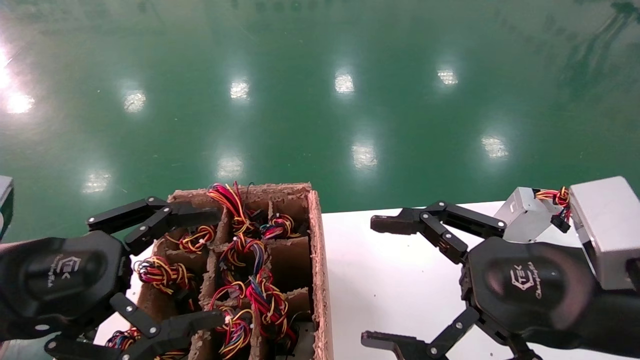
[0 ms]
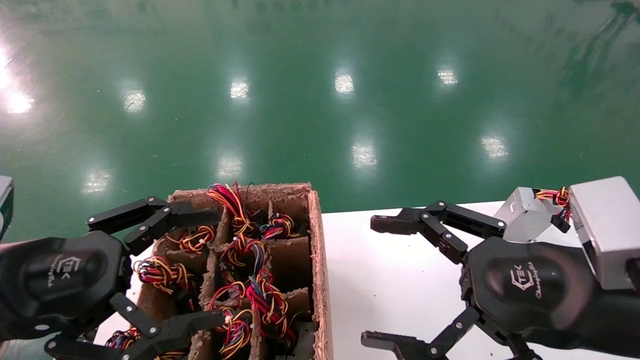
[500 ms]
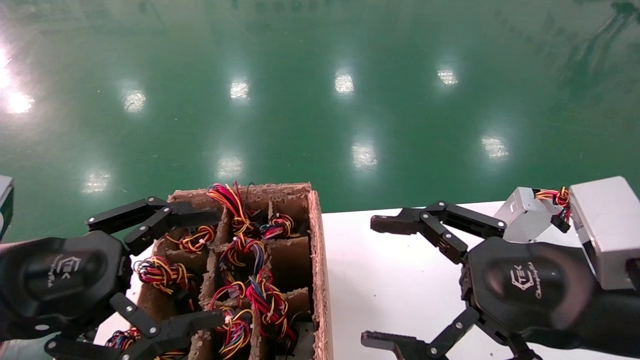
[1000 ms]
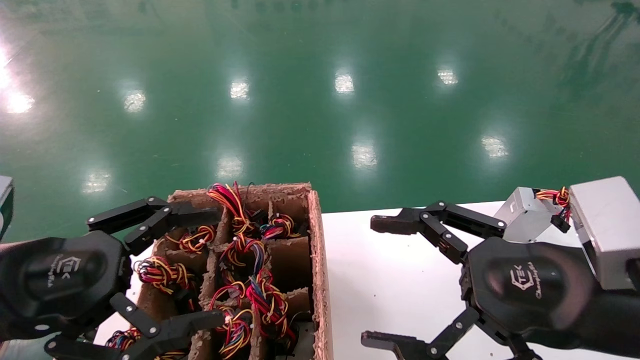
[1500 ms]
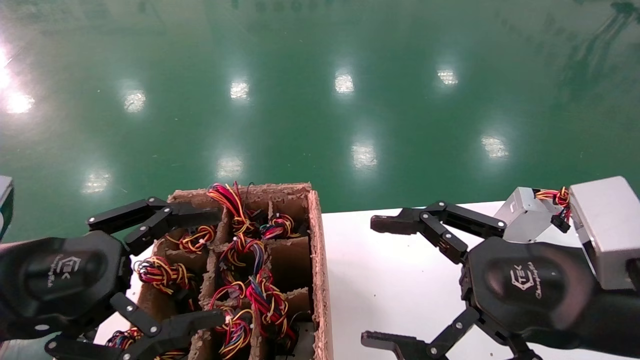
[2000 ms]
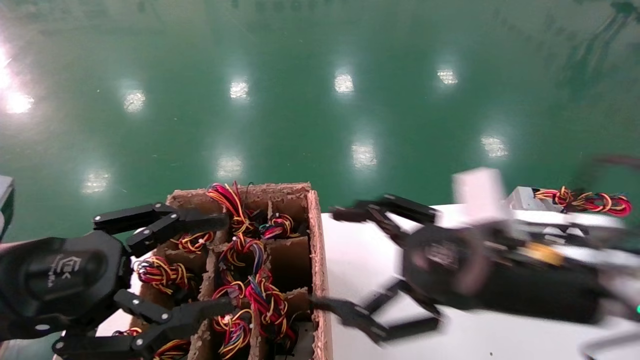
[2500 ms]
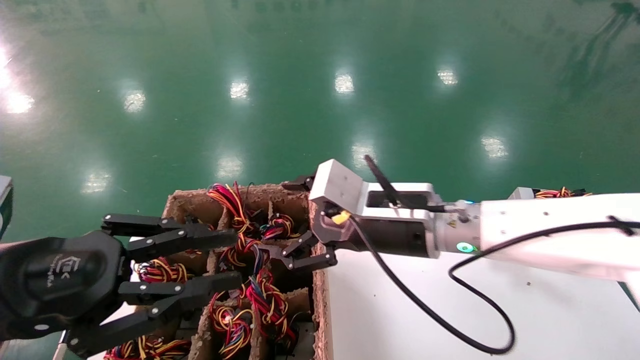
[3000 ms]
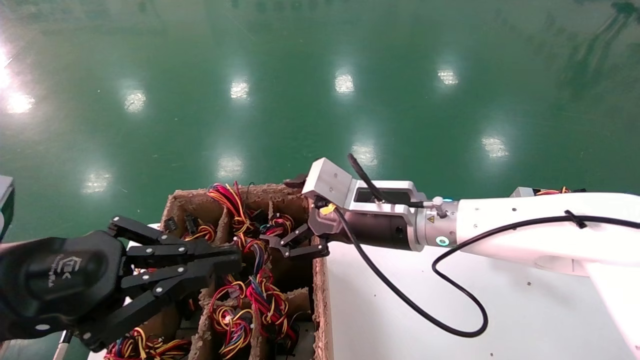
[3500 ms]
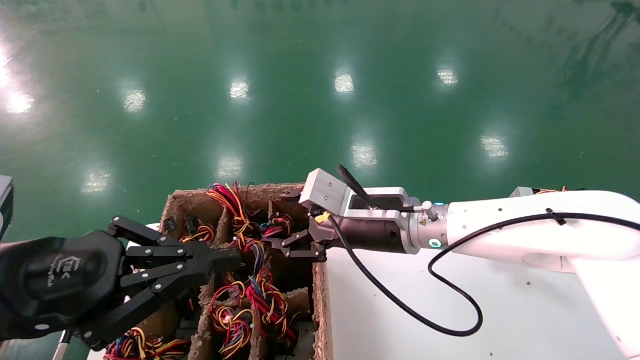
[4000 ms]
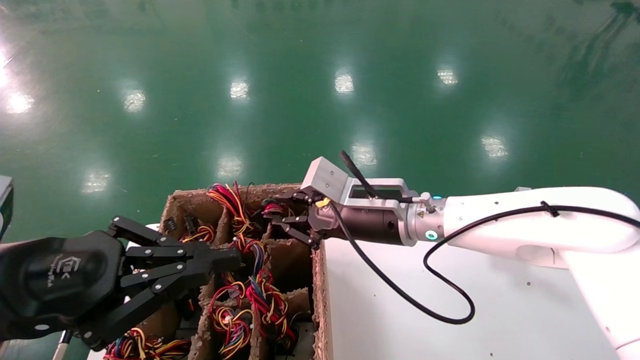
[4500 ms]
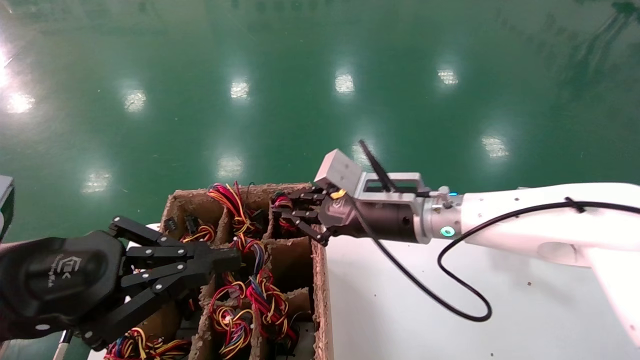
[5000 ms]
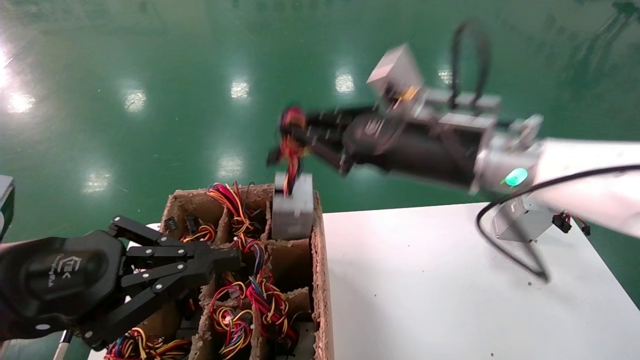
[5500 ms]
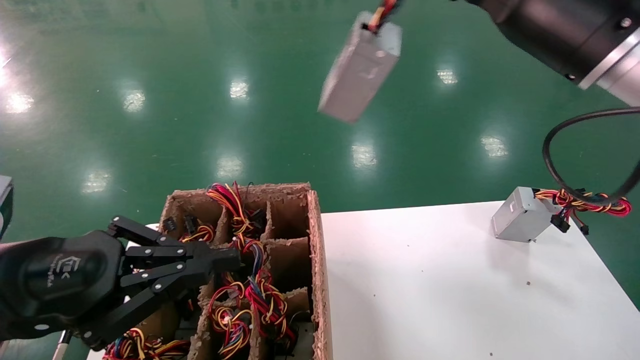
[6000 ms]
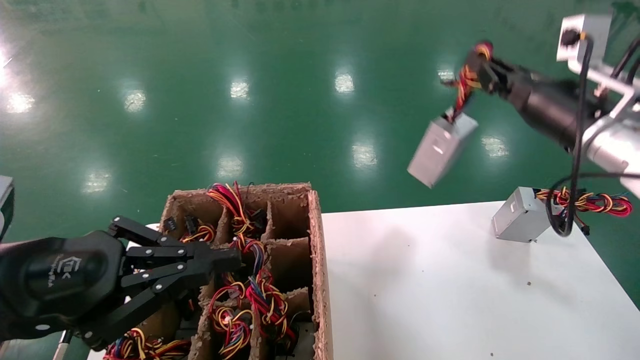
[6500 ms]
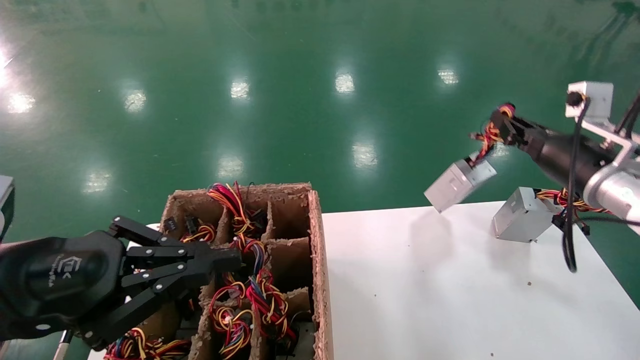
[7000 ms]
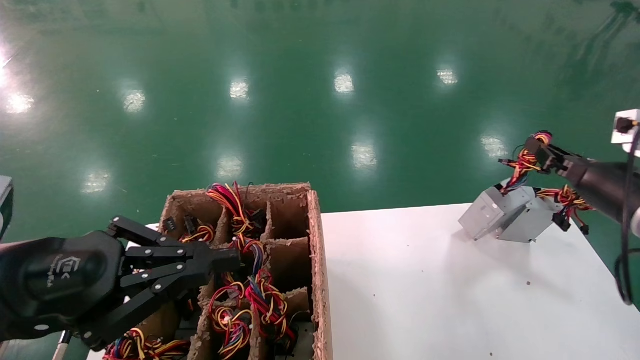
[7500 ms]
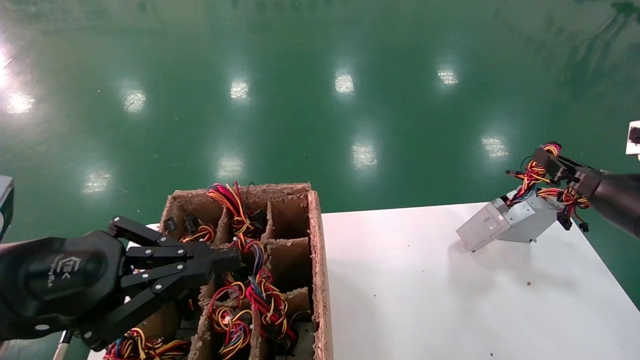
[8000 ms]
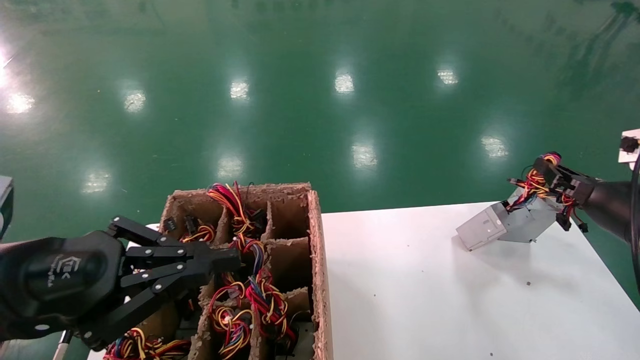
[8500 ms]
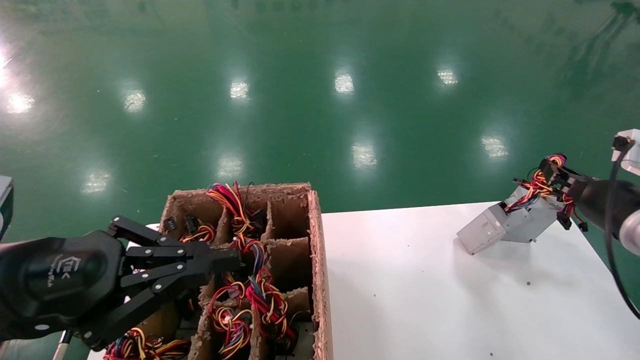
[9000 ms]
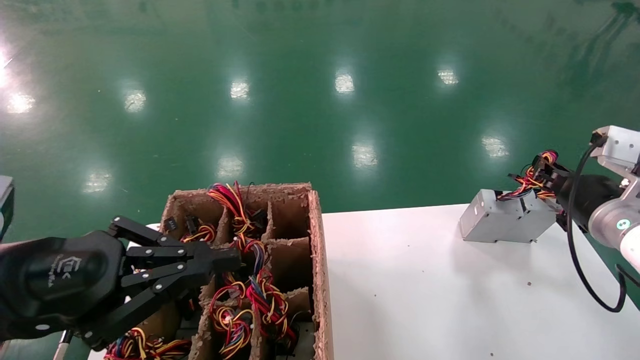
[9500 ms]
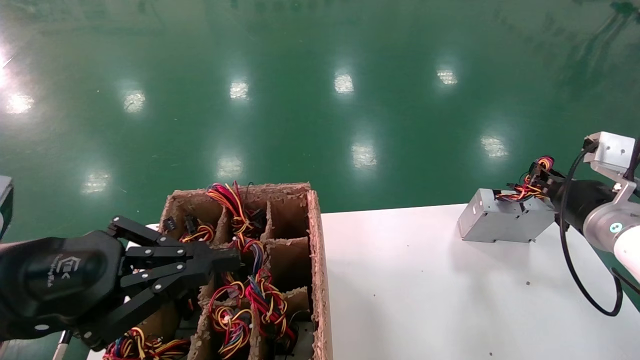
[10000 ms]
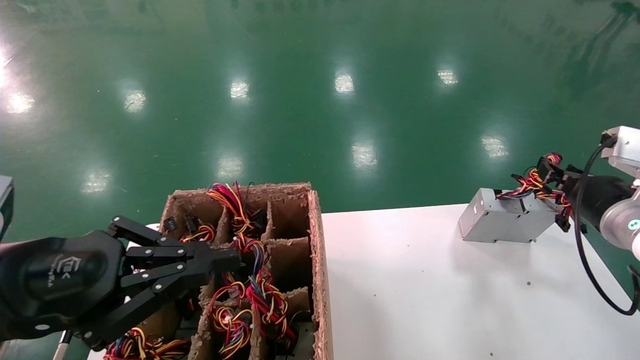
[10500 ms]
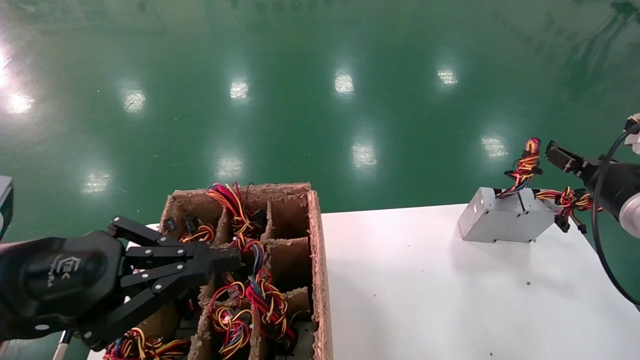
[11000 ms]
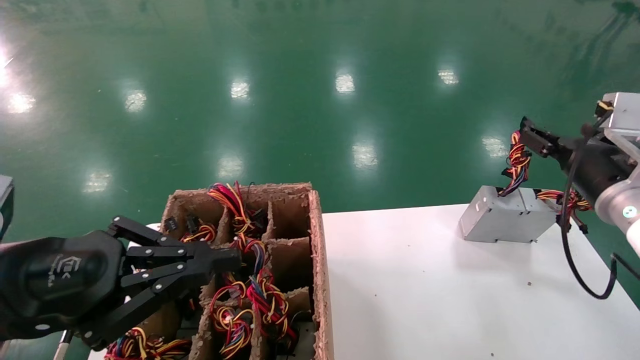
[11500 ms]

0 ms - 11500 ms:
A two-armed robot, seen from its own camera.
Step, 3000 ms - 4500 ms: Grab the main unit power supply from the containment box.
Step, 5000 ms - 10500 ms: Place the main unit power supply in the designated area.
0 ms - 2000 ms: Neither gripper changes place.
2000 ms - 4000 ms: The right gripper moves forward and to the left, some 25 cm, while the left gripper closes its fingers.
4000 ms - 6000 ms: The right gripper travels upward and to the right by roughly 20 cm, and closes its fingers.
6000 ms - 7500 ms: The right gripper goes roughly 25 cm to the right and downward.
7500 ms - 9500 ms: The grippers make only small movements.
9500 ms - 11500 ms: The right gripper opens up.

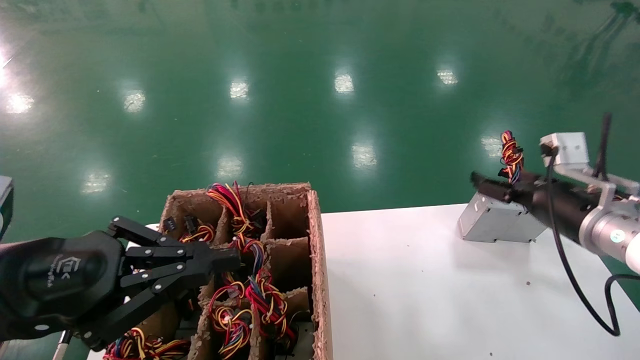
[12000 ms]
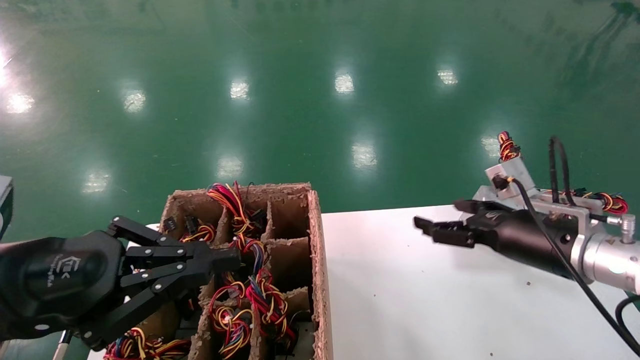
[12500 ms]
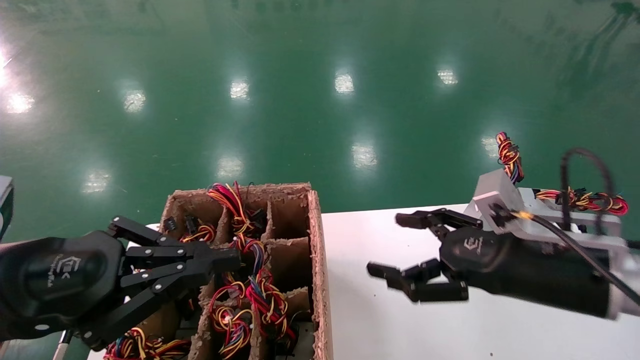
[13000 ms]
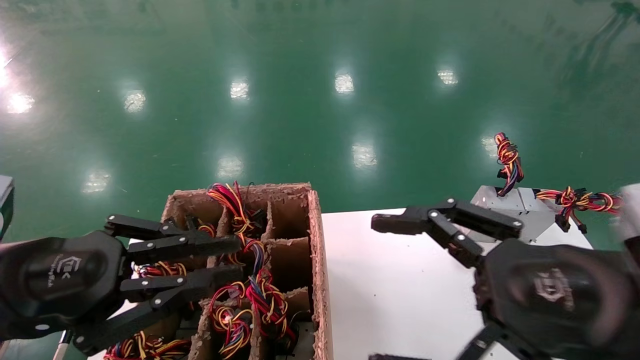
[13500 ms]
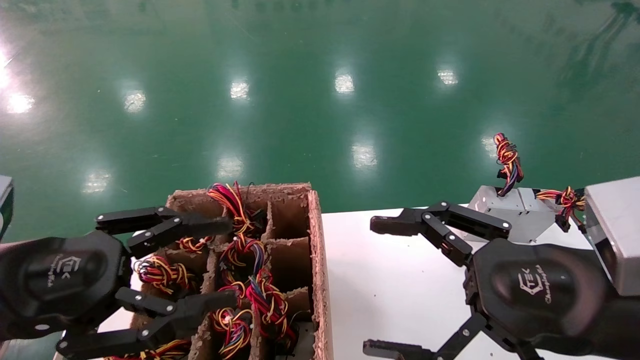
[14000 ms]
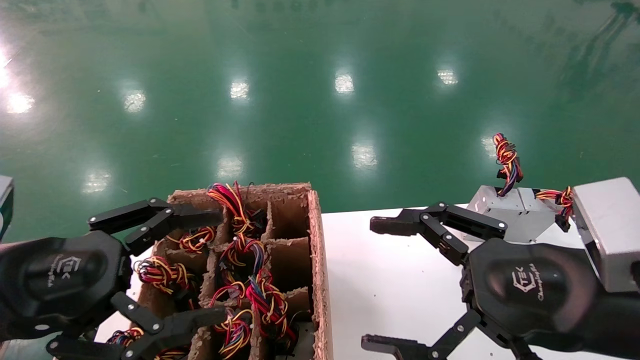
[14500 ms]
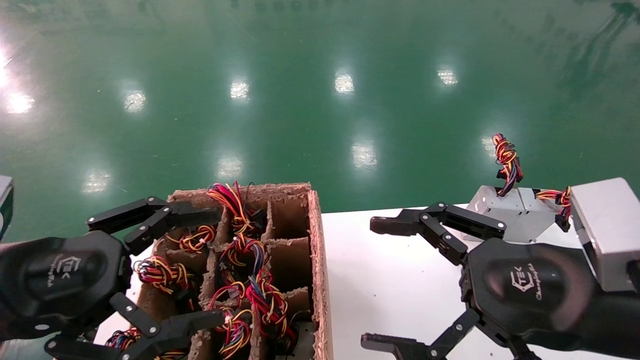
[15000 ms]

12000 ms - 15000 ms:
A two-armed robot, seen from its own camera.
12000 ms - 13500 ms: The right gripper shifts approximately 20 cm backward and to the left.
13500 ms - 15000 ms: The left gripper opens its fingers.

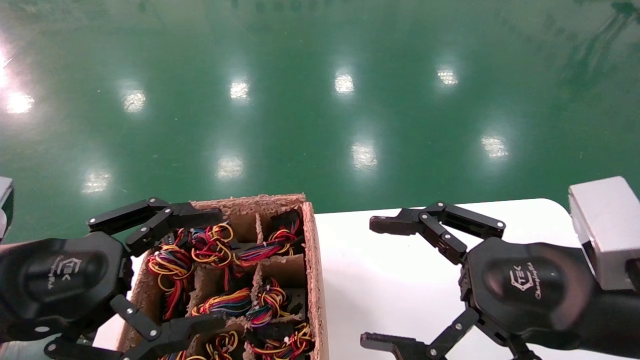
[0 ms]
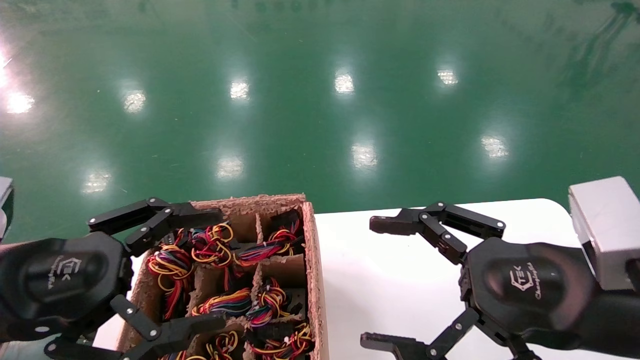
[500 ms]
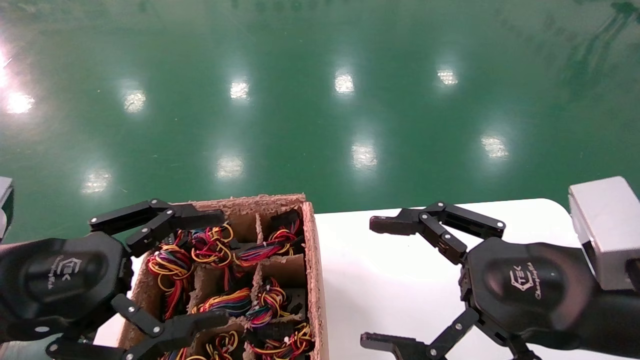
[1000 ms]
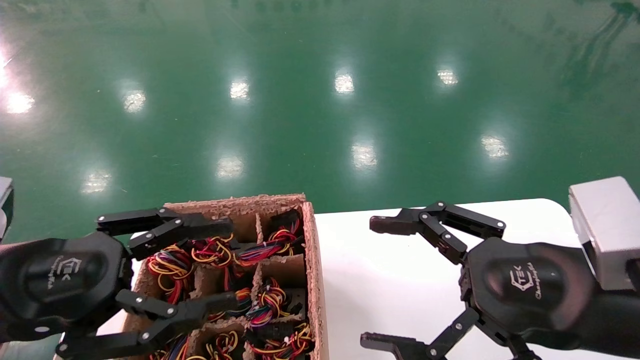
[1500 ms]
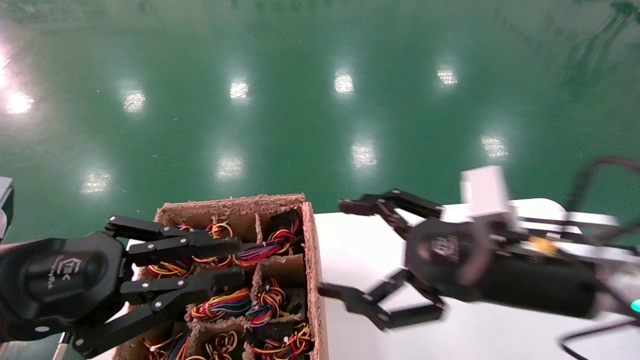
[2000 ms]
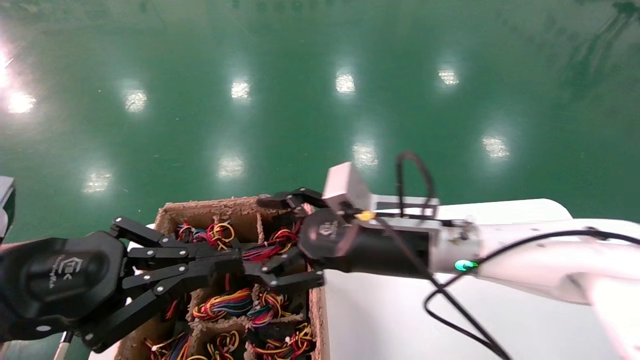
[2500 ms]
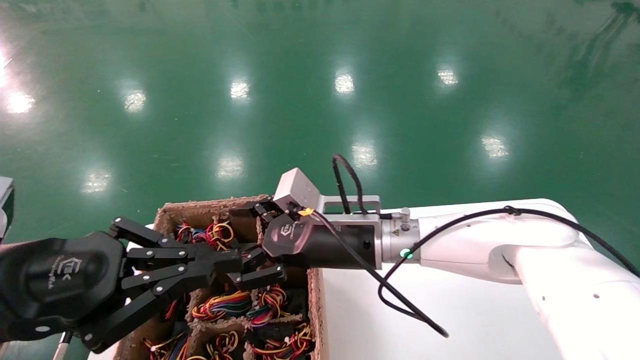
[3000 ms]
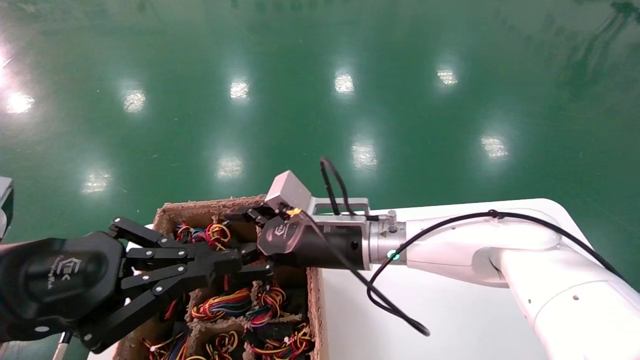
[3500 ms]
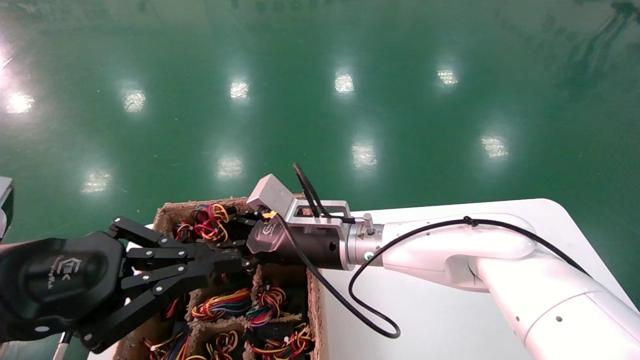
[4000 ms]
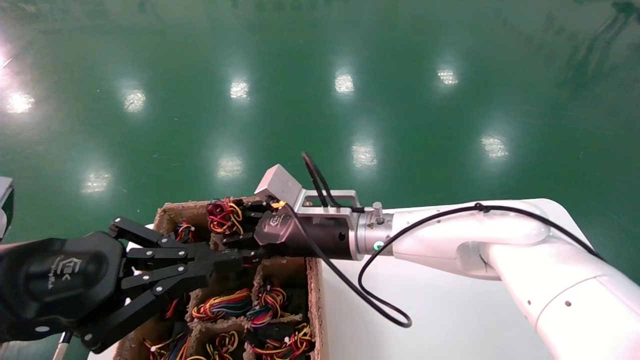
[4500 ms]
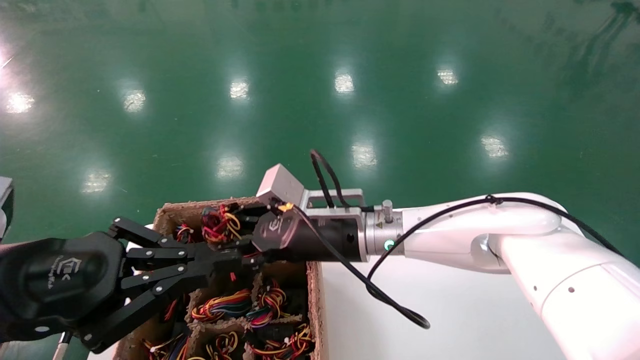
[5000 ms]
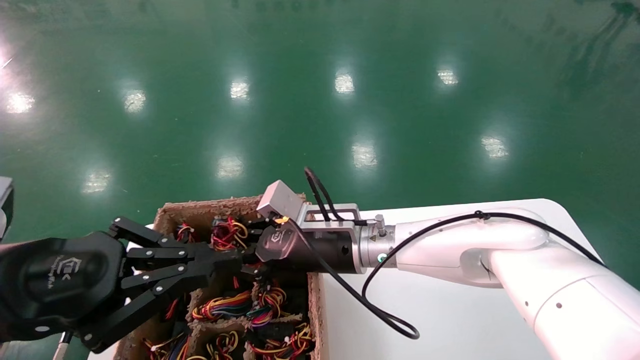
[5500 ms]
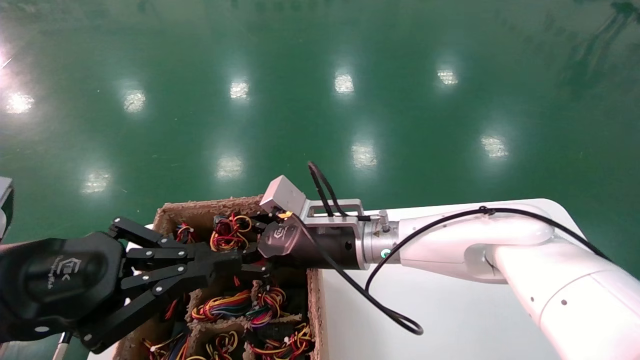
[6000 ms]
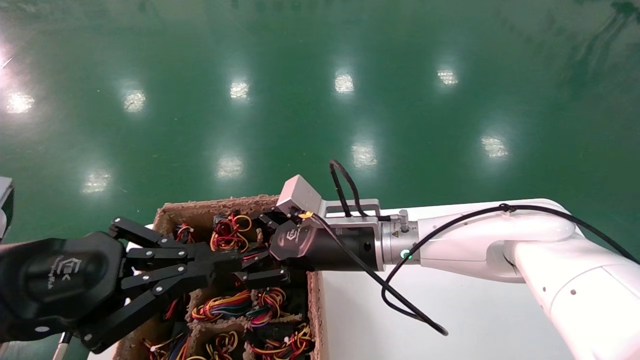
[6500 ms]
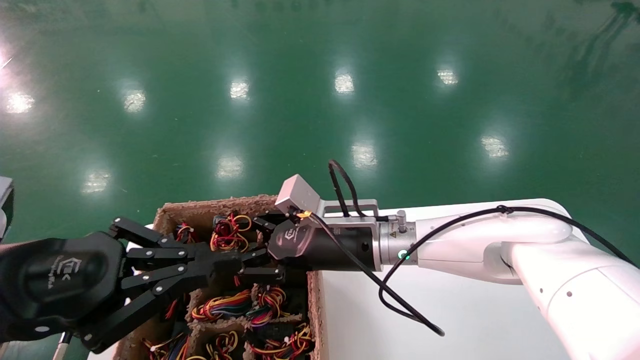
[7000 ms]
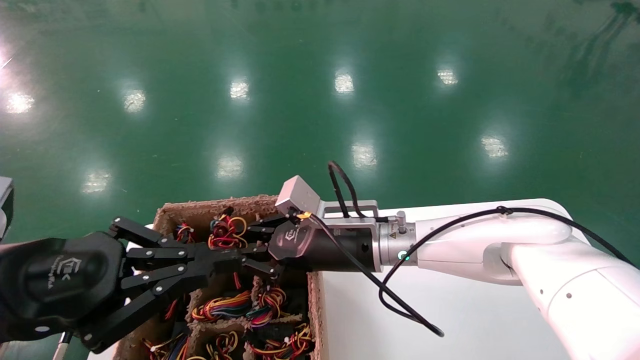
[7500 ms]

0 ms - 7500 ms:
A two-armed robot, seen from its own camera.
Step, 2000 ms - 4000 ms: Grab the main unit power supply from the containment box.
0 ms - 2000 ms: The right gripper shifts roughly 5 cm forward, while the left gripper closes.
2000 ms - 4000 ms: The right gripper is displaced to the left and forward by roughly 25 cm, and closes up.
4000 ms - 5500 ms: The right gripper closes its fingers.
5500 ms - 7500 ms: The right gripper opens, then closes again.
